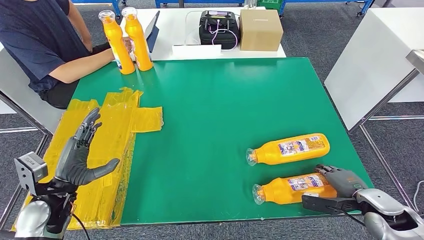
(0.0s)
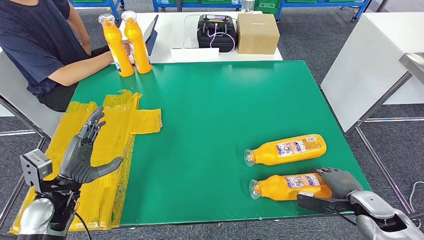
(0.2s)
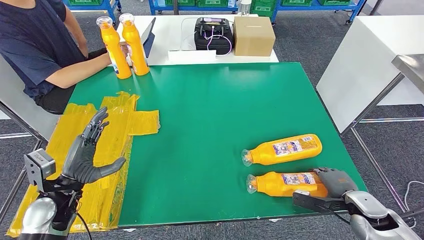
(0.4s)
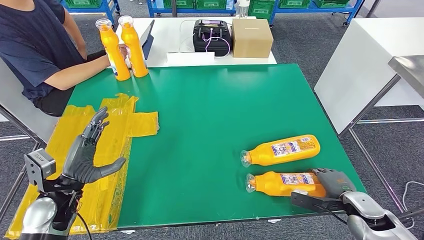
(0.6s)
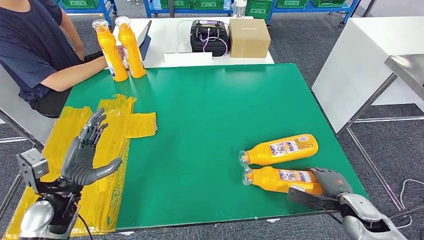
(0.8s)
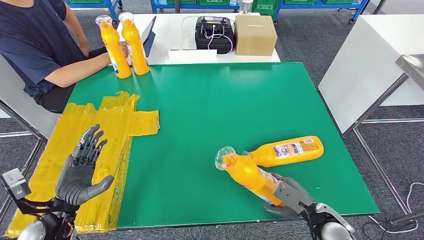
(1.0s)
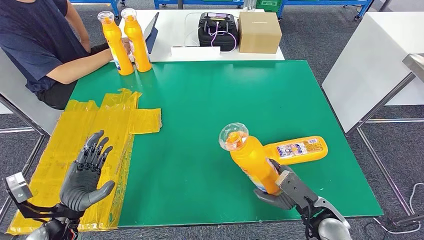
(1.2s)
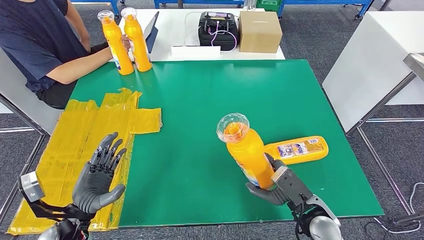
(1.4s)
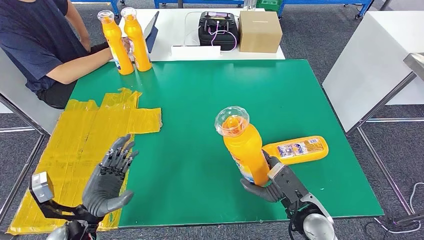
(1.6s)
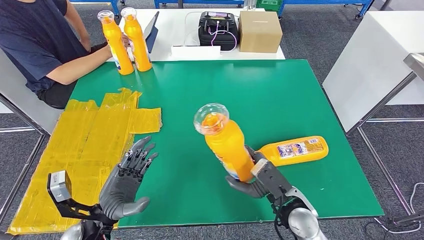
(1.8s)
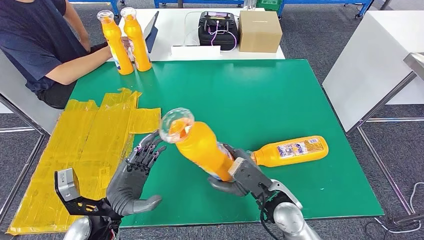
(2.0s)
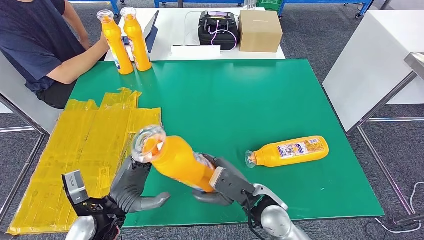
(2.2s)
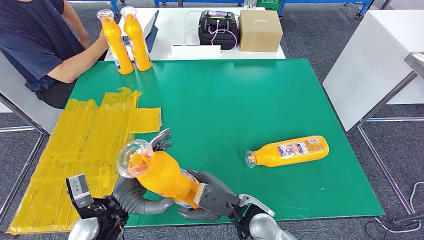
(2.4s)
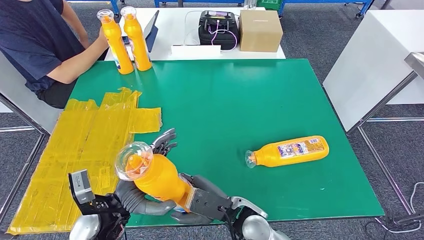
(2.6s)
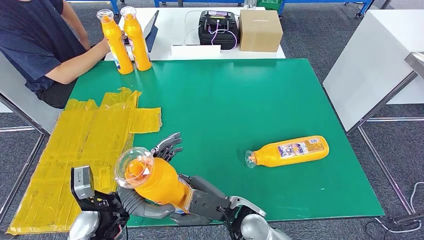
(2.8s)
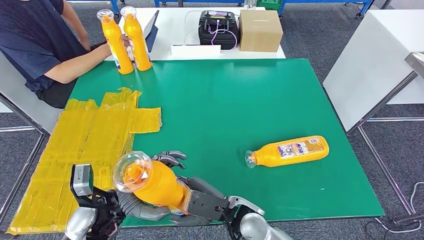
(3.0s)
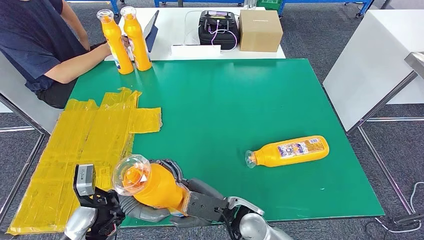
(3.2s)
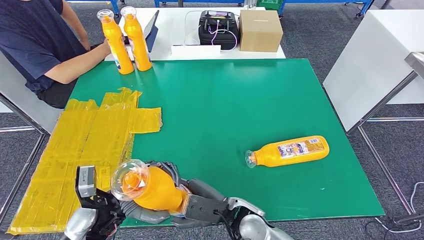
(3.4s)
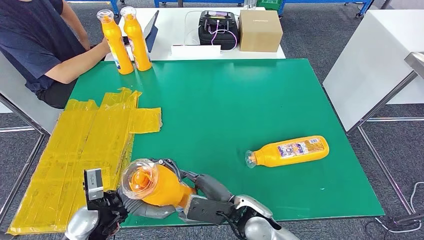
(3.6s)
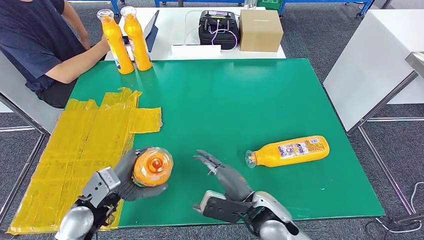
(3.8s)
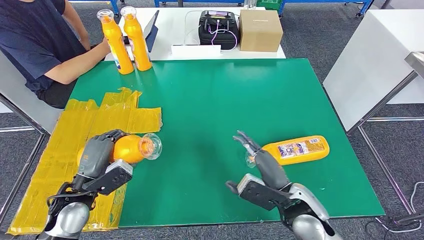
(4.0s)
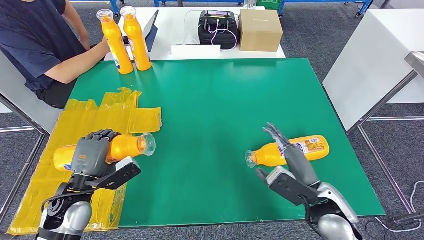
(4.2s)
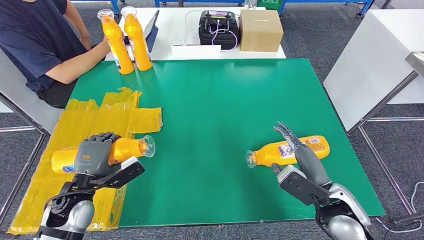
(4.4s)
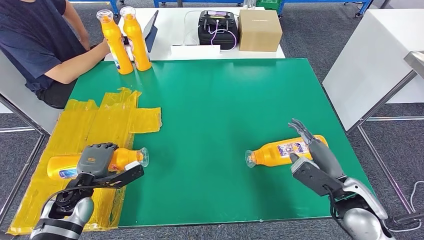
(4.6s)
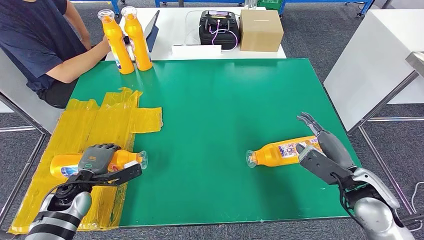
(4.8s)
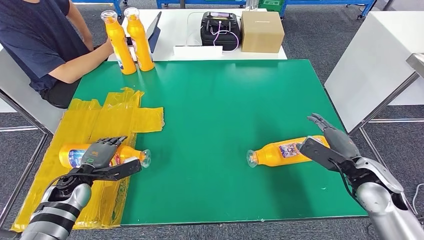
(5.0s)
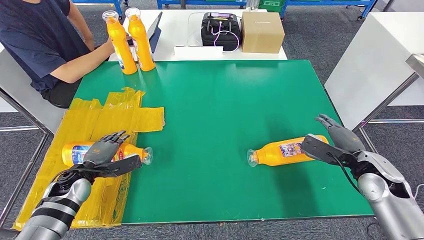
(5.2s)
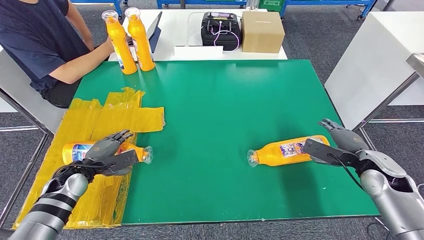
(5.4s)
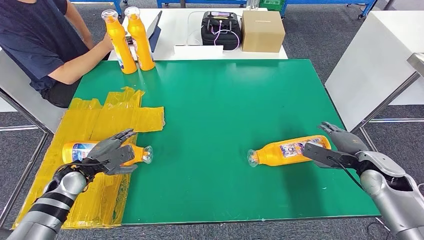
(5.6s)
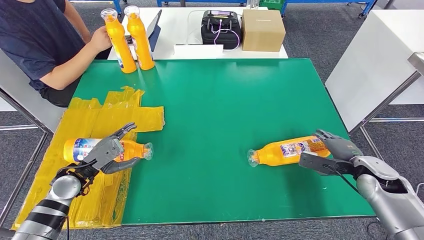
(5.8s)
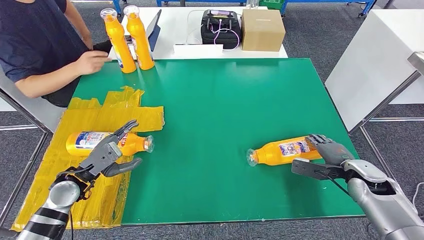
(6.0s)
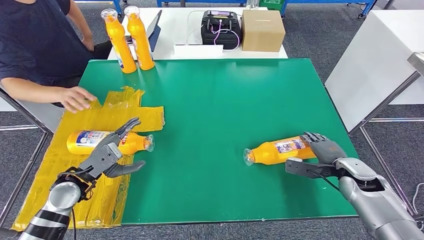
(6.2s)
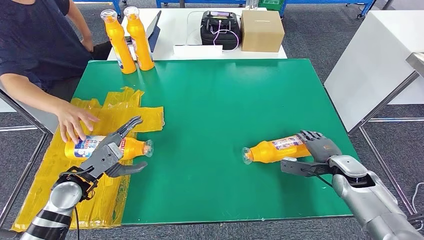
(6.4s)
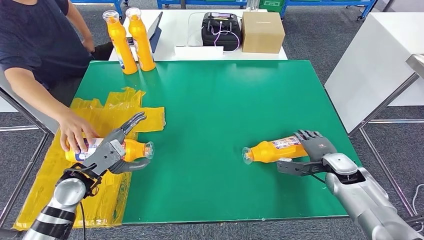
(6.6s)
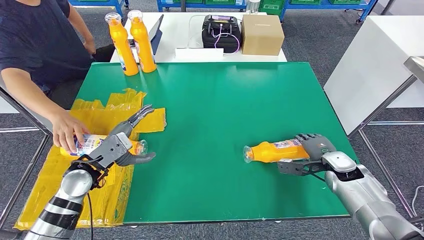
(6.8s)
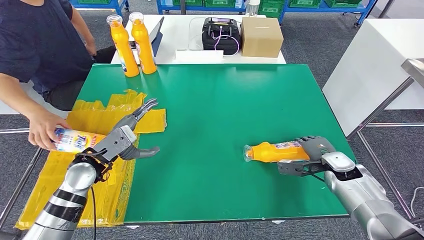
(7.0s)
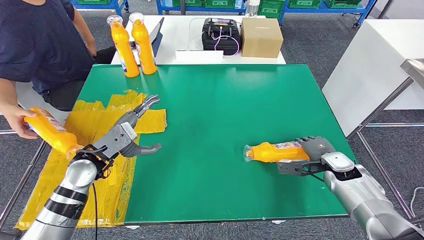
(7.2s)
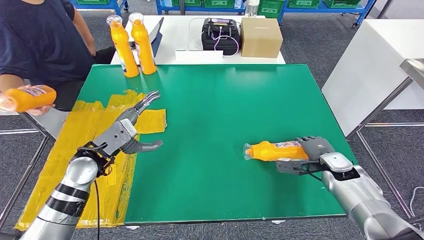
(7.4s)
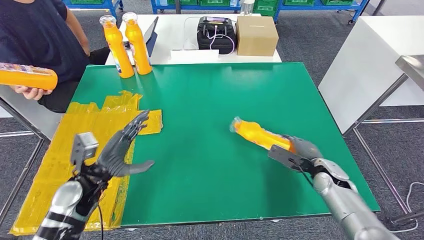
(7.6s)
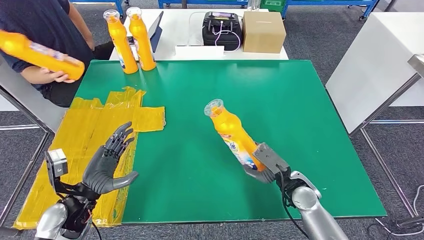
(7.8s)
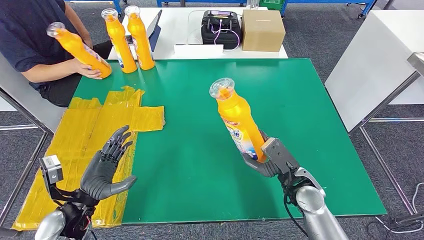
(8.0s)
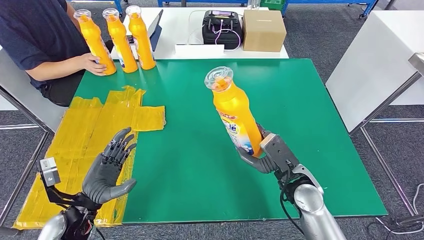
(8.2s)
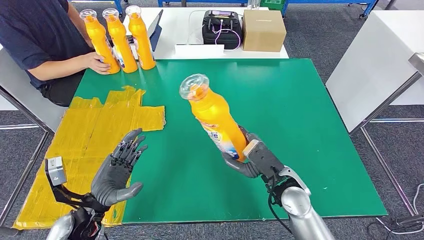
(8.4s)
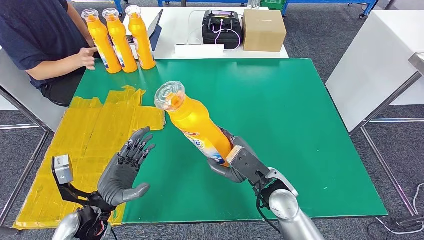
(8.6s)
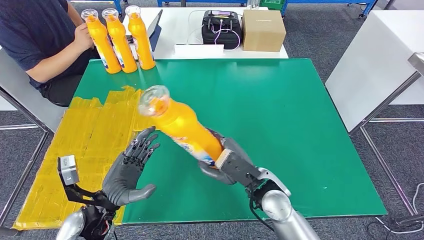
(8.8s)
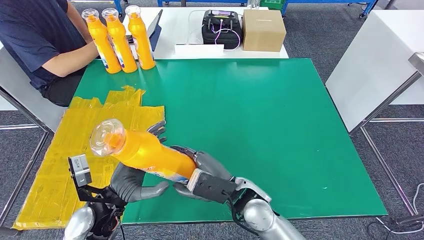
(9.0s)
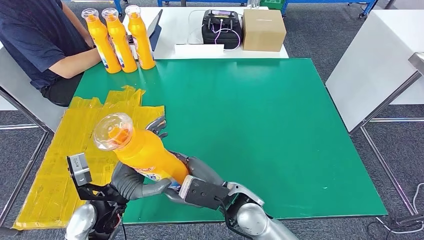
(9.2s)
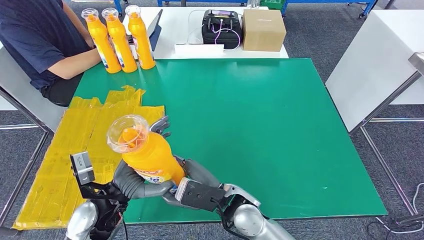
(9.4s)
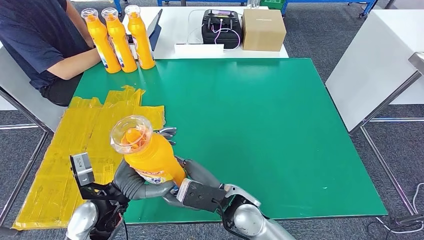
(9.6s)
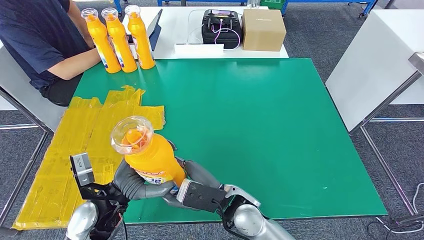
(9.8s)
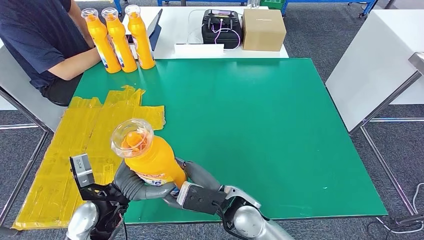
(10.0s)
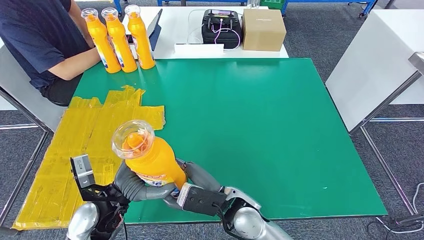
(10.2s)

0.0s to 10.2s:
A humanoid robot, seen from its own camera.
Step, 0.0s to 1.6s: Pick up the fast-moving consumer goods bottle from the table.
Step, 1.8s to 5.8s: Flip the fast-moving consumer goods bottle to the front side.
Step, 7.4s to 10.2s: Pick up the fast-moving consumer goods bottle from the table.
3.0s to 4.4s: The right hand shifts some 20 cm to the right; the left hand shifts roughly 10 cm to the left.
8.8s to 10.2s: The right hand shifts approximately 5 cm to the left.

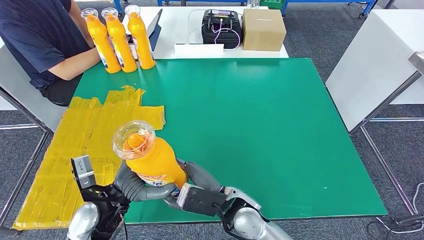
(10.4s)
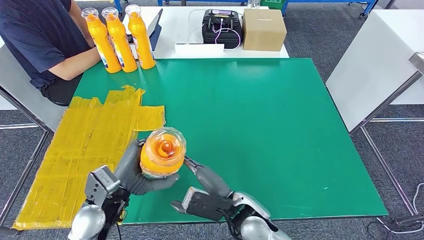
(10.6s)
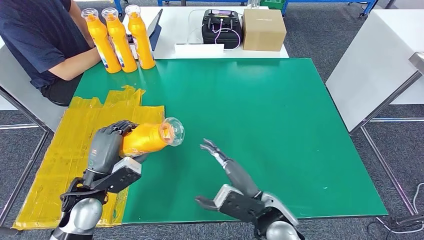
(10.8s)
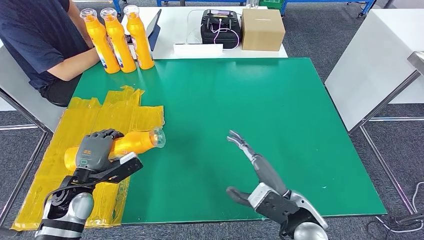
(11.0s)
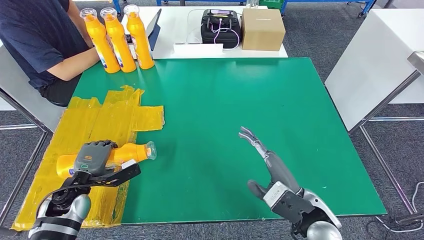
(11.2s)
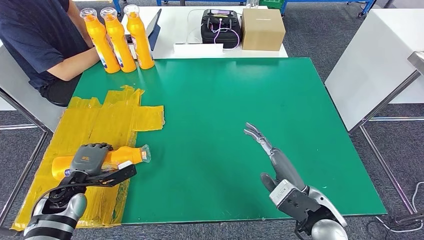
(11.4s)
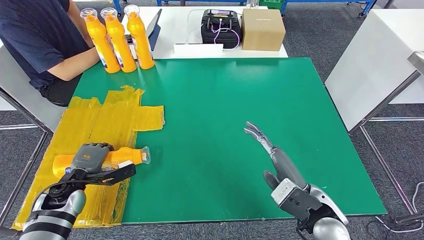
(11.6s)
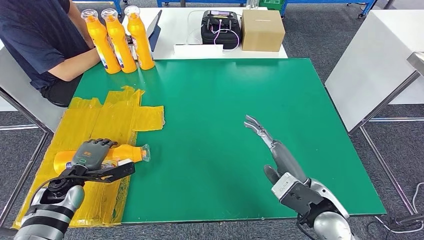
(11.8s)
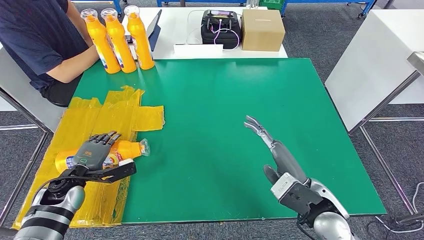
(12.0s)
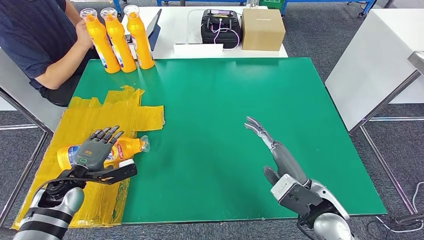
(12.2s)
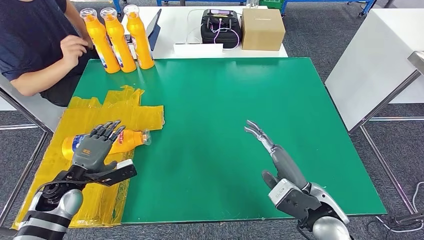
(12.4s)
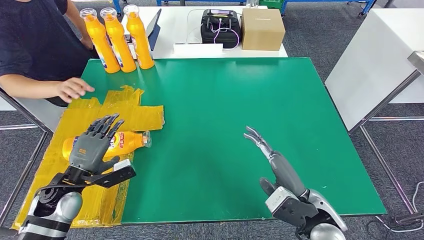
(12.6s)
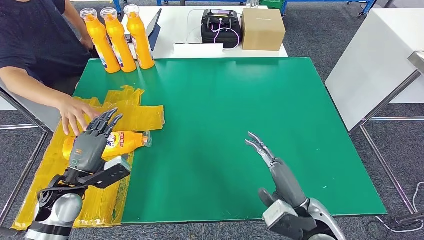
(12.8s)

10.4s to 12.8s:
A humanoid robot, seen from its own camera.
Step, 10.4s to 12.8s: Flip the fast-moving consumer goods bottle to the front side.
10.4s to 11.6s: The right hand shifts about 15 cm to the right, while the left hand is displaced to the left and downward by about 20 cm.
11.6s to 12.8s: The left hand heads upward, covering some 5 cm.
